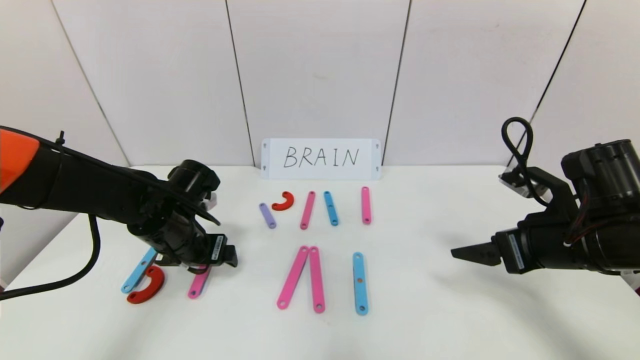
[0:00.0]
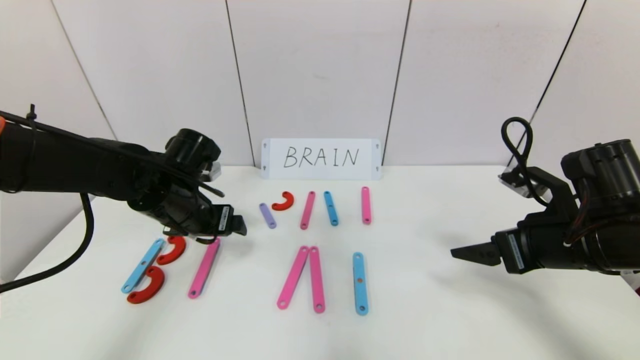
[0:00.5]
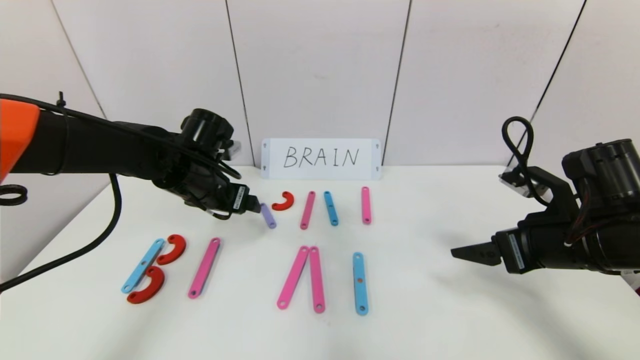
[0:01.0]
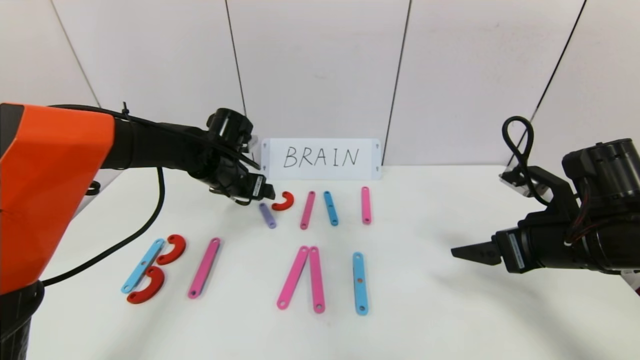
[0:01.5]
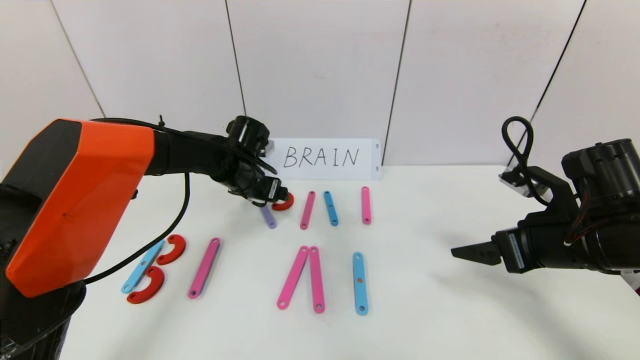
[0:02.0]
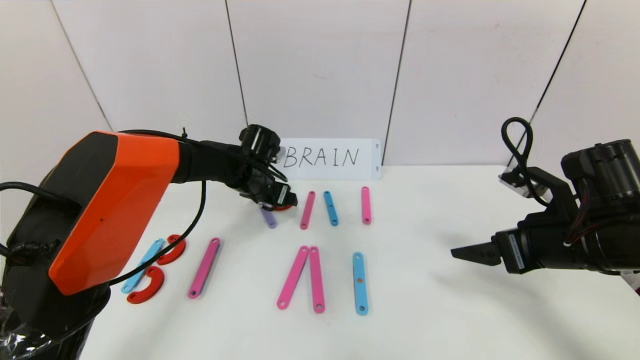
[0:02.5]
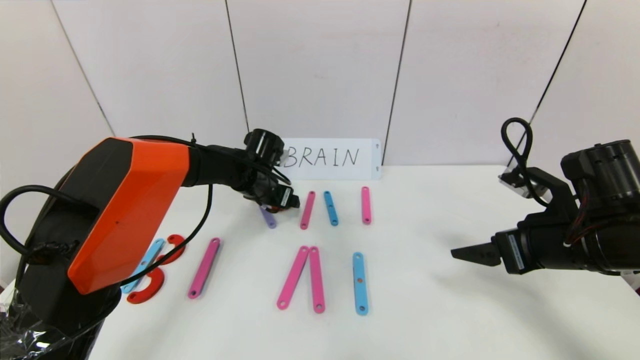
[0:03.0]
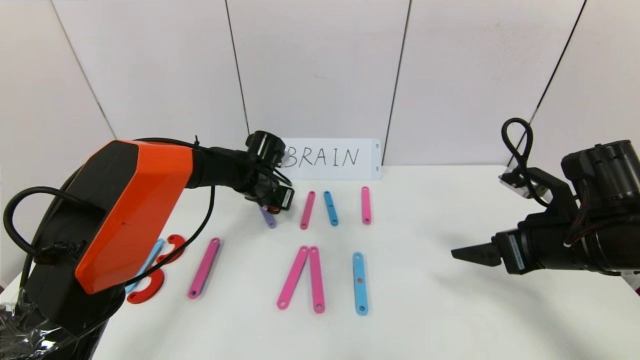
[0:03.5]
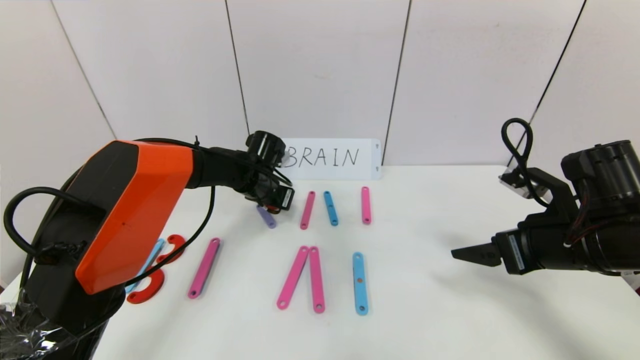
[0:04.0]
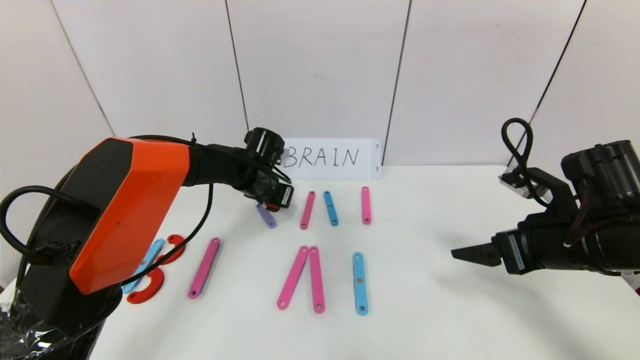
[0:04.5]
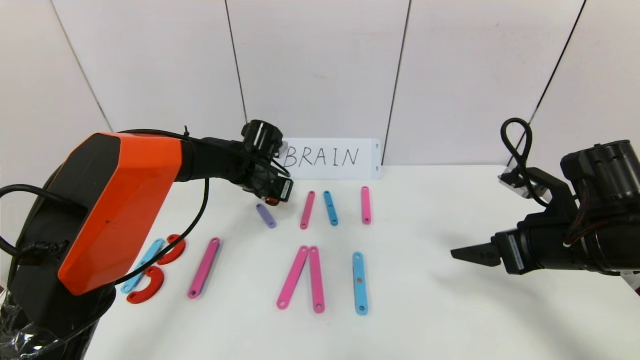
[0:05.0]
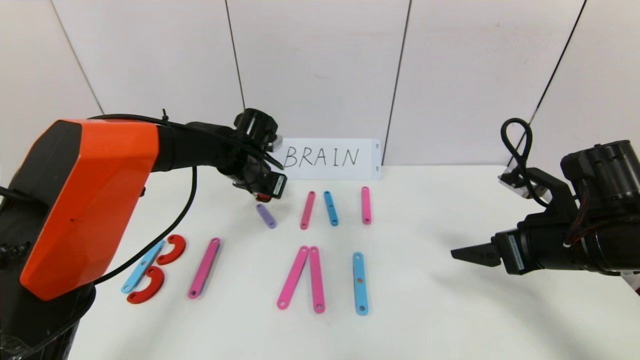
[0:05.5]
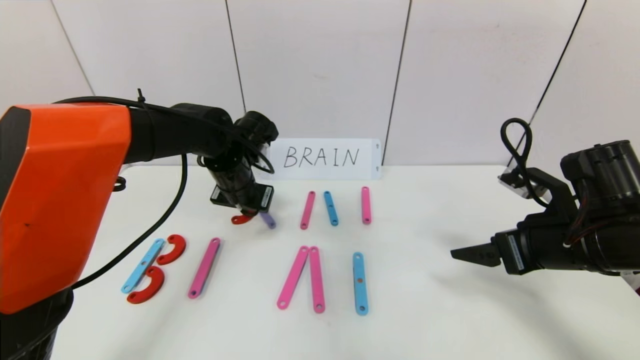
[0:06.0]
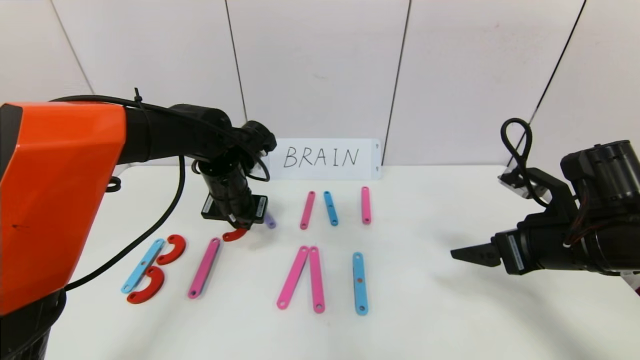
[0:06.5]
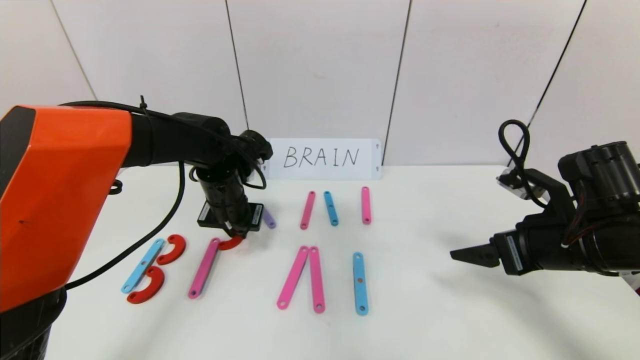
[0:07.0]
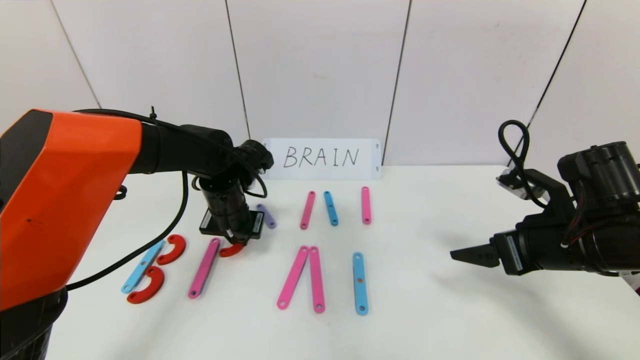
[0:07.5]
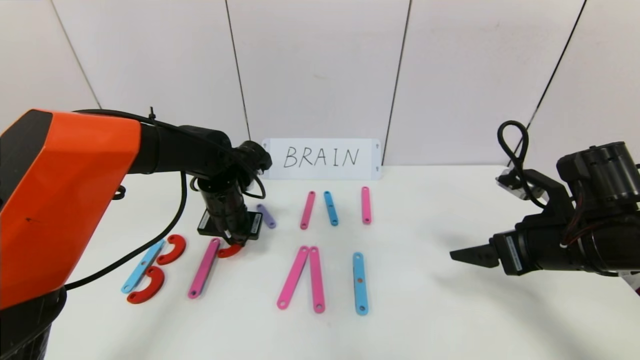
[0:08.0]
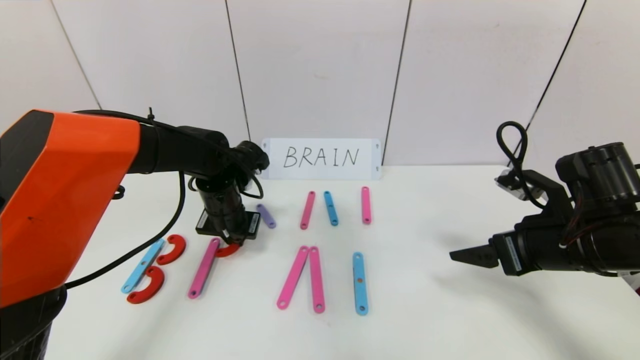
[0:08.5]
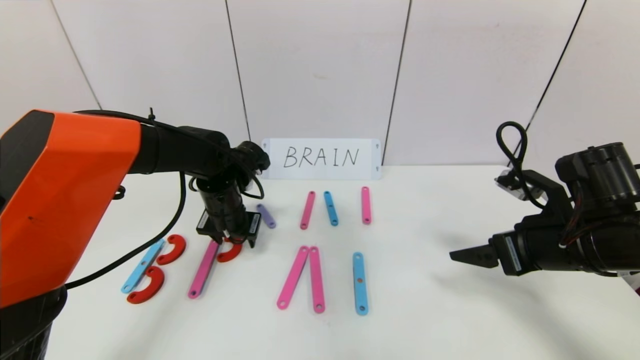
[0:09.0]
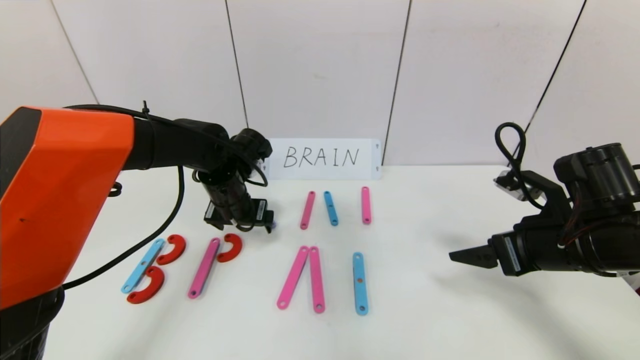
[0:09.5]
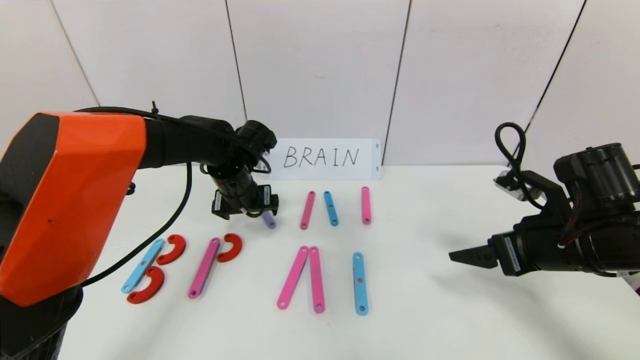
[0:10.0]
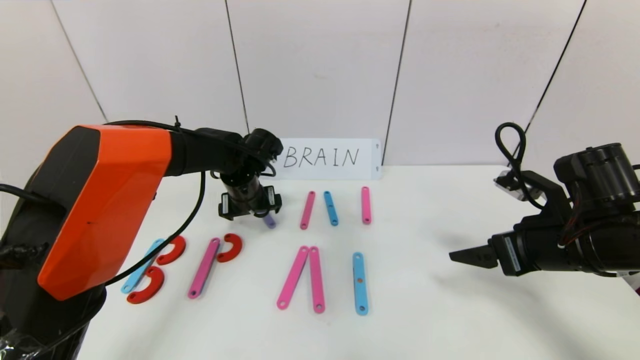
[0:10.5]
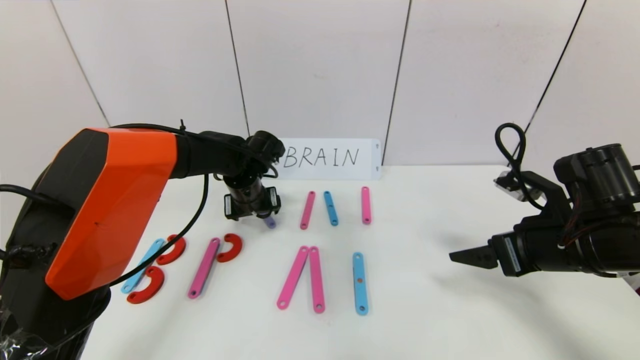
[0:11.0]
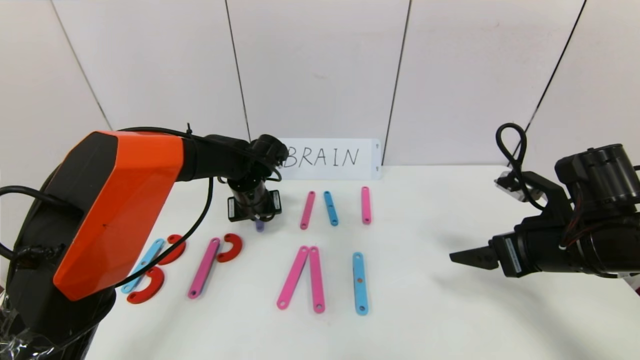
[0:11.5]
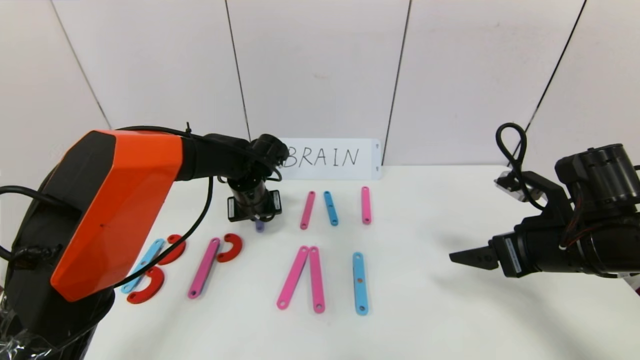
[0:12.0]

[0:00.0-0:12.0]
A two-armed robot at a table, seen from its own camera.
Task of the whole recording: rearrange the word baai as brain.
0:00.0 to 0:02.0: The left gripper shifts about 15 cm forward and to the right.
0:02.0 to 0:04.0: The left gripper closes.
0:04.0 to 0:06.0: The left gripper heads backward and upward, covering some 10 cm.
0:06.0 to 0:08.0: The grippers move only a little.
0:08.0 to 0:10.0: The left gripper opens its fingers.
0:10.0 to 0:12.0: The left gripper closes its fingers.

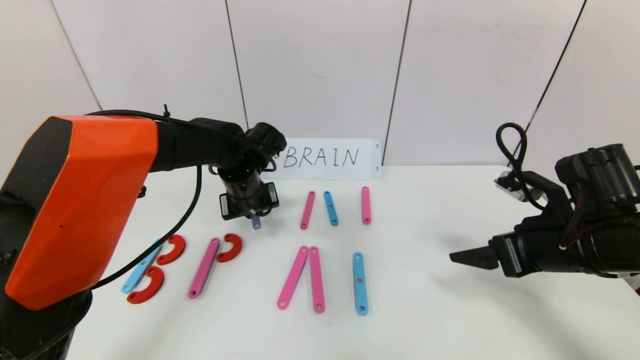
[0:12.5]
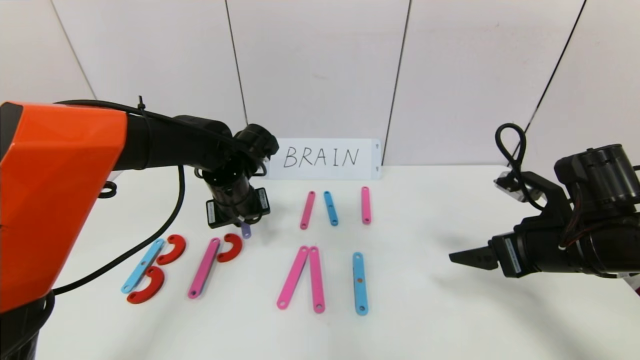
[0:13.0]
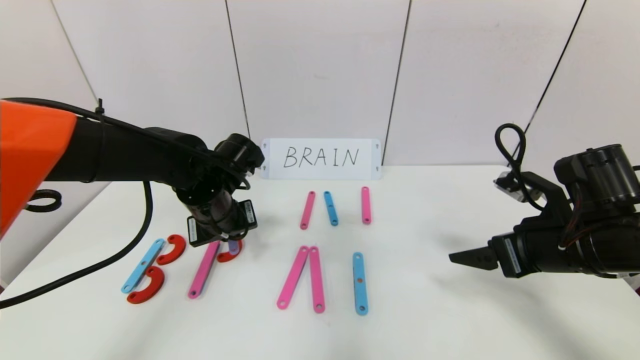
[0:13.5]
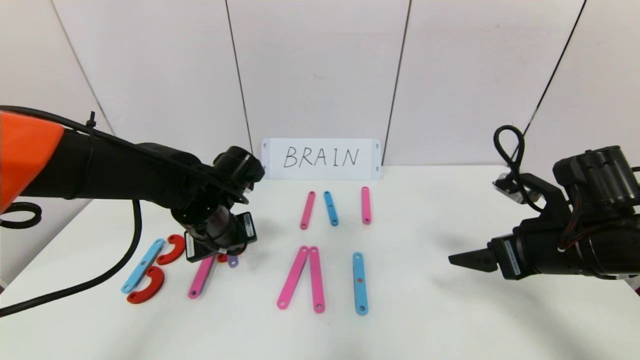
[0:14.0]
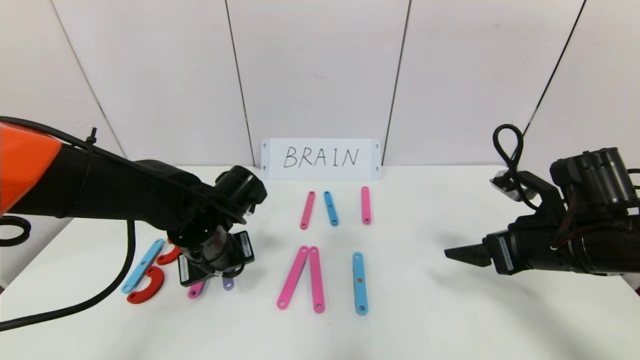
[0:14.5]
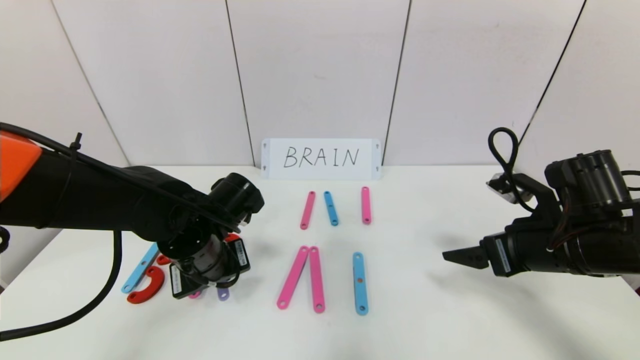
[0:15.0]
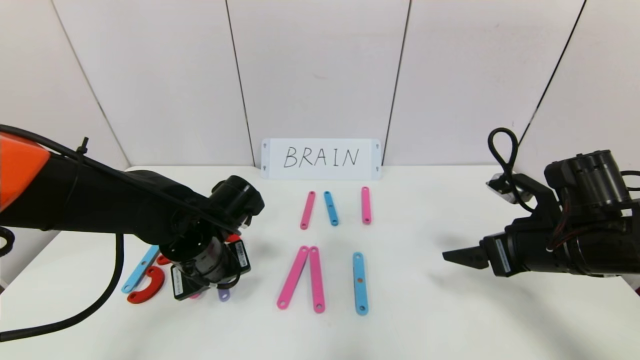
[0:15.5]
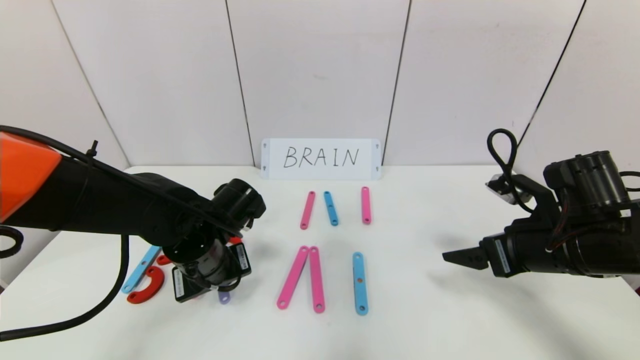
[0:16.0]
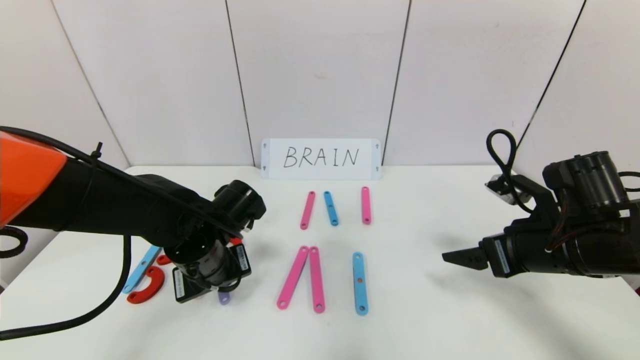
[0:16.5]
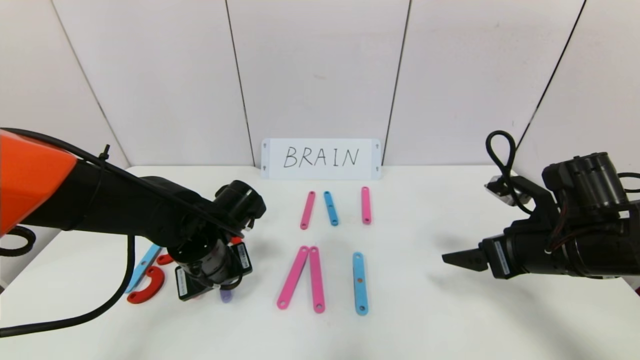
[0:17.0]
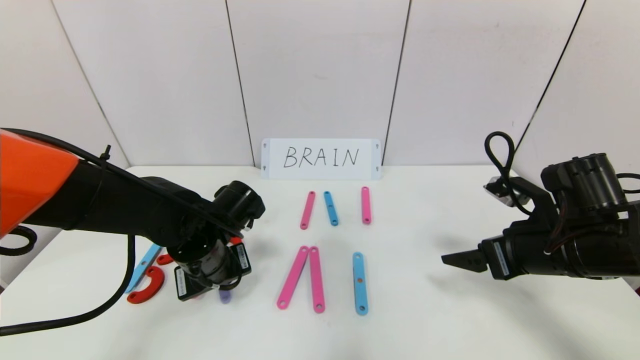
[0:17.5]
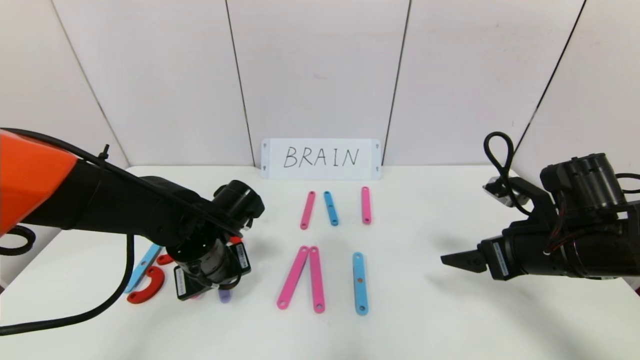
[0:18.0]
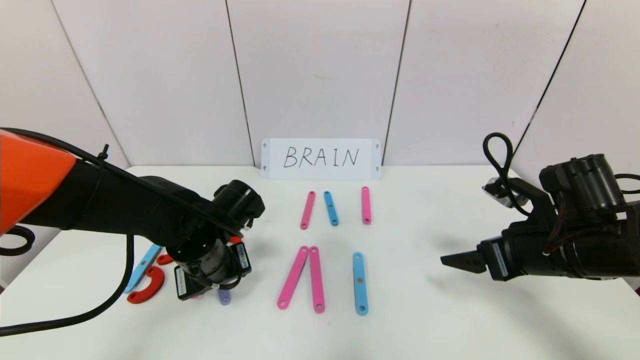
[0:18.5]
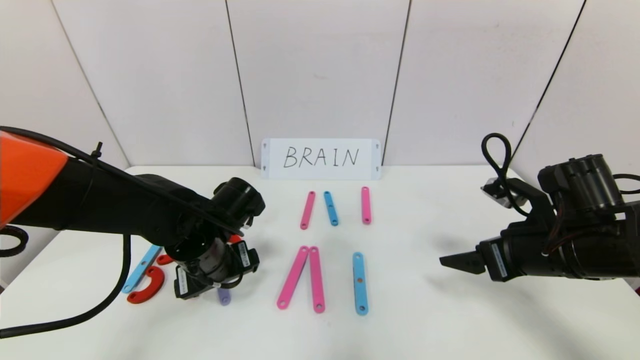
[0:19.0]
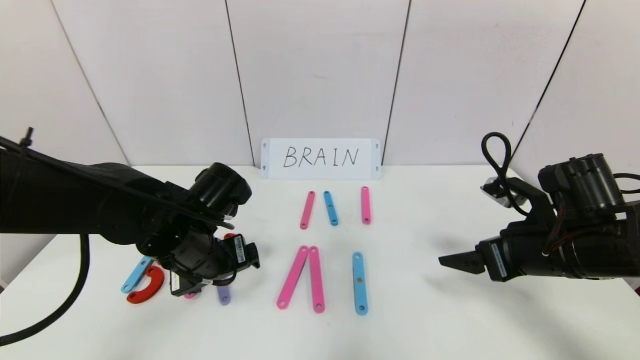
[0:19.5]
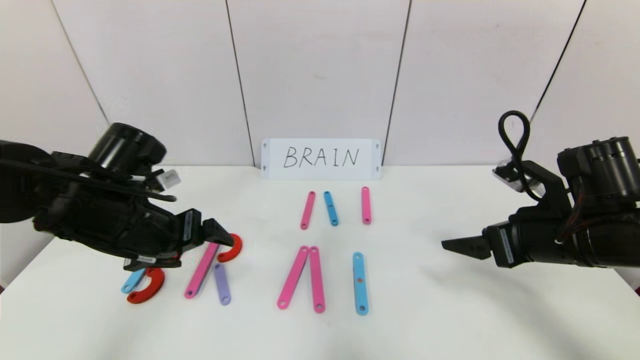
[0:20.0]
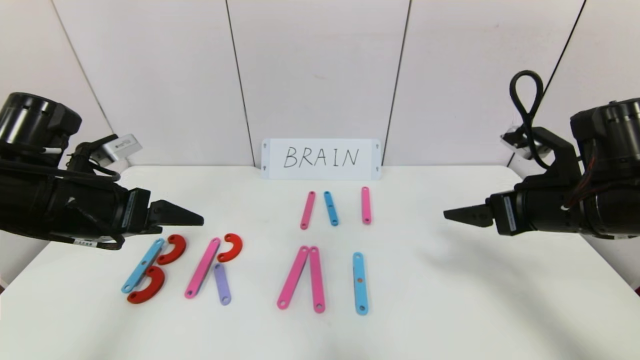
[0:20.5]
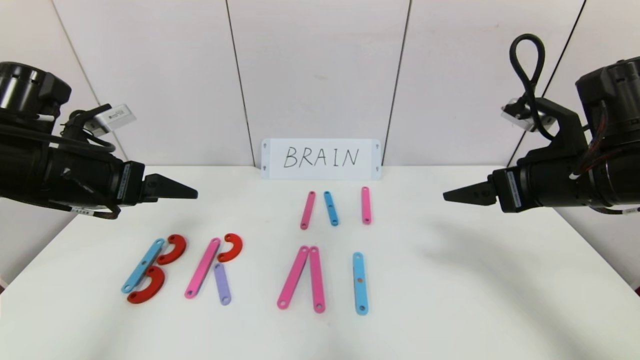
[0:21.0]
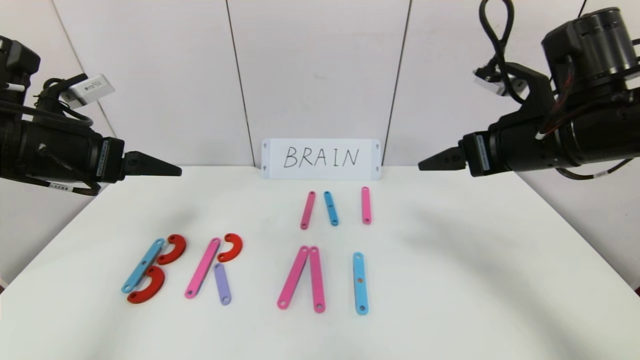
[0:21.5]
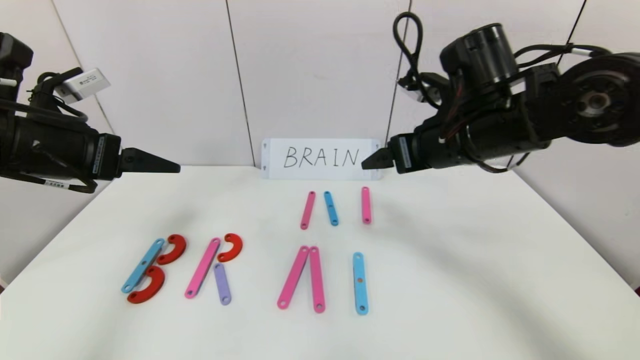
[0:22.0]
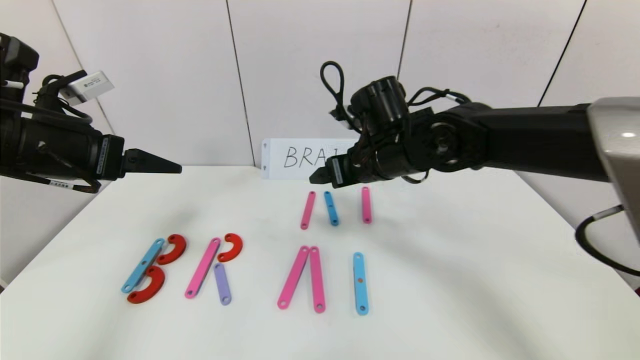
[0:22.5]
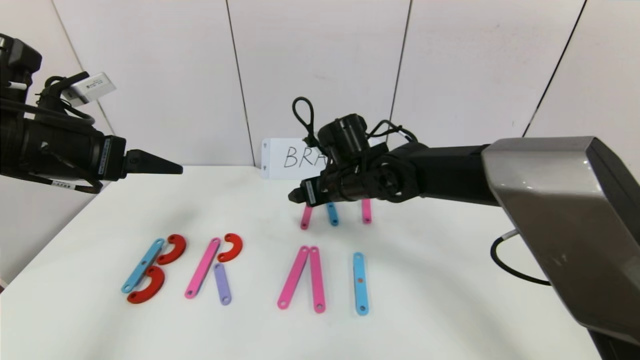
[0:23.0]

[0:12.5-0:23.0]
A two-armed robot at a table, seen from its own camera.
Task of the whole recording: rearrange the word baai as brain.
Step, 0:12.5 to 0:19.0: Place the character R between first character B and third character A.
0:12.5 to 0:14.5: The left gripper moves backward, about 10 cm.
0:14.5 to 0:16.5: There are only small adjustments of the grippers.
0:16.5 to 0:19.0: The left gripper opens.
0:19.0 to 0:21.0: The left gripper goes roughly 20 cm to the left and upward. The right gripper travels upward by about 10 cm.
0:21.0 to 0:23.0: The right gripper travels to the left, forward and downward by approximately 30 cm.
